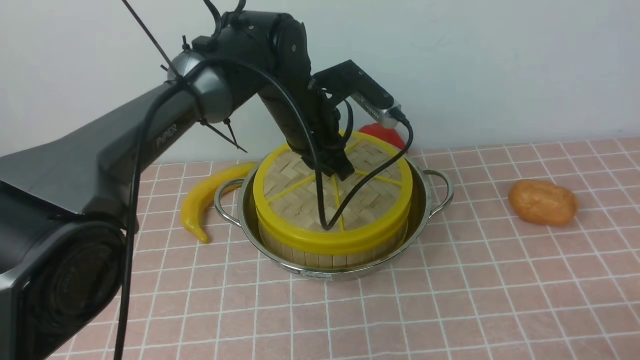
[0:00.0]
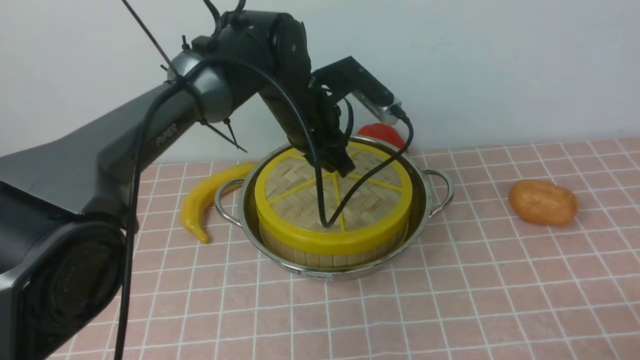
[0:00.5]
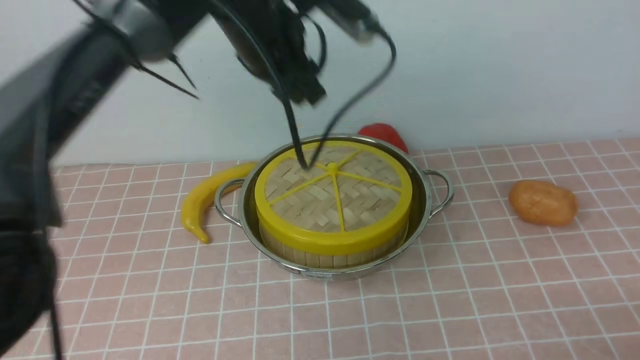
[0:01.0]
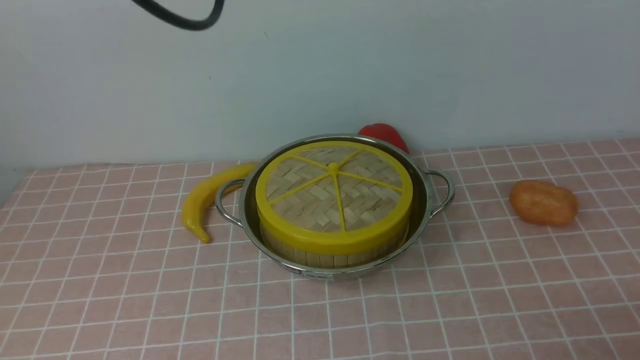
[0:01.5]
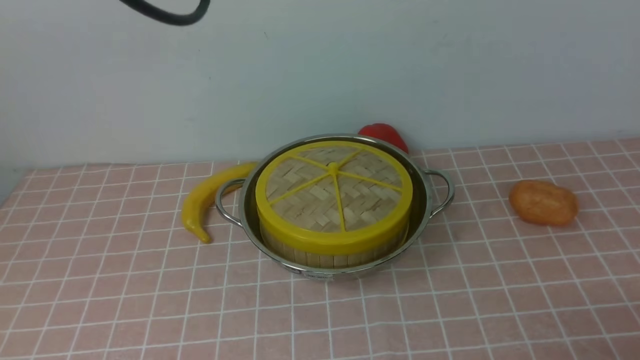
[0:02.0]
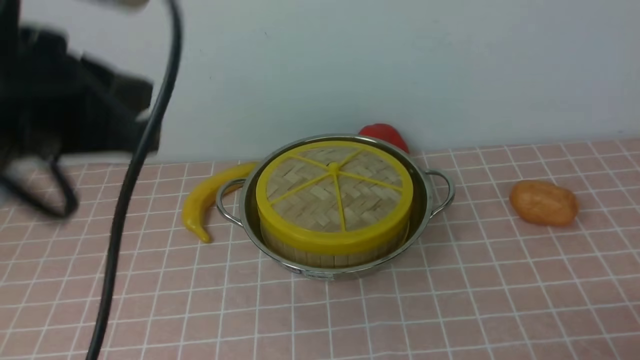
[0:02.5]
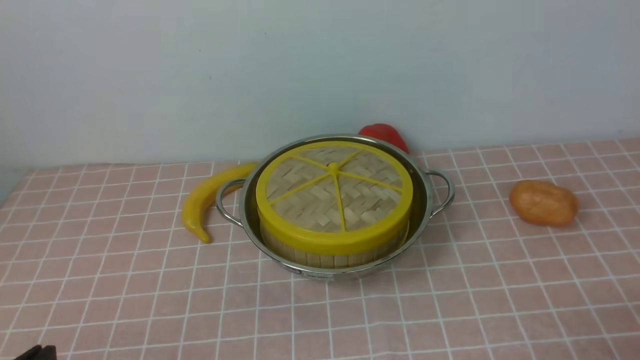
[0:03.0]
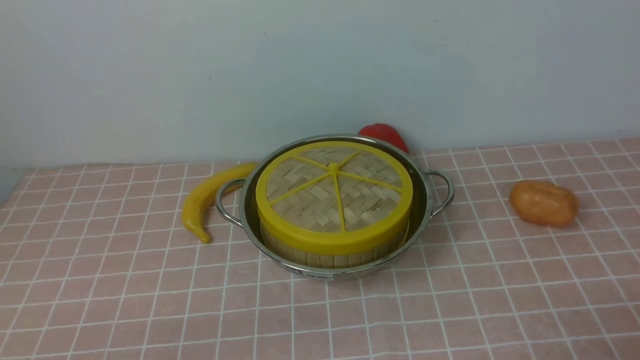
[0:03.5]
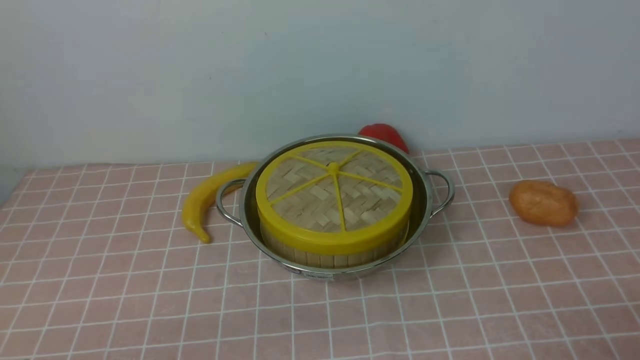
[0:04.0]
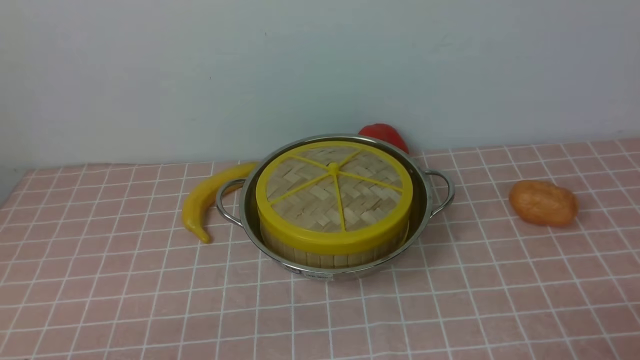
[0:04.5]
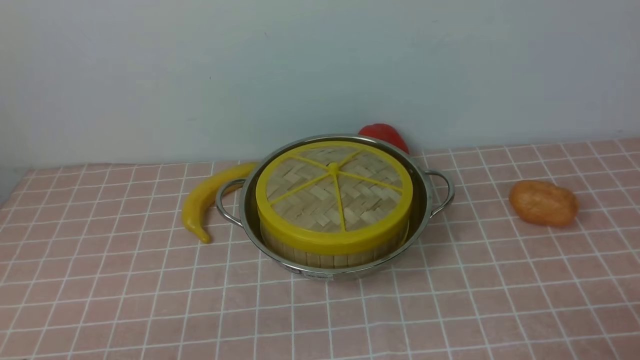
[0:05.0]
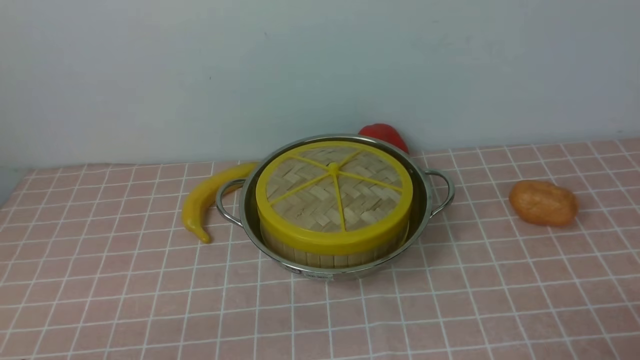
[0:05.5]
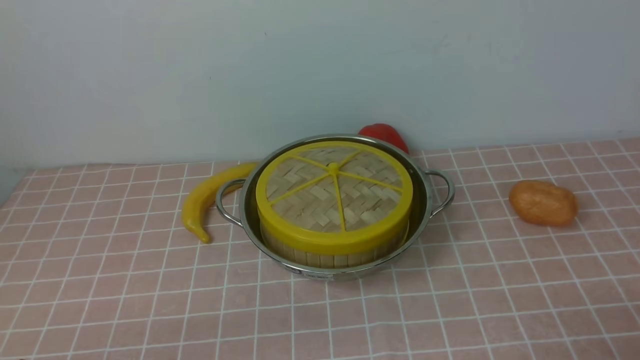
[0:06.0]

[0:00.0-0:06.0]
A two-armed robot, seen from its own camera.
Task of the whole recording: place the steamer in the pot on the pink tablecloth, and put the lid on the steamer.
0:00.0 to 0:02.0: The left gripper heads upward, backward and to the left, covering about 30 cm, and closes.
